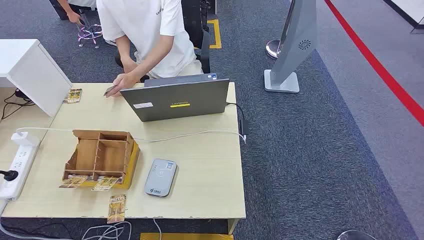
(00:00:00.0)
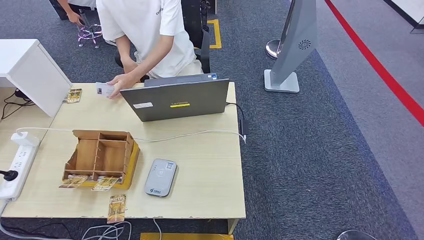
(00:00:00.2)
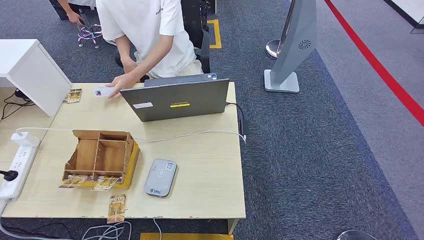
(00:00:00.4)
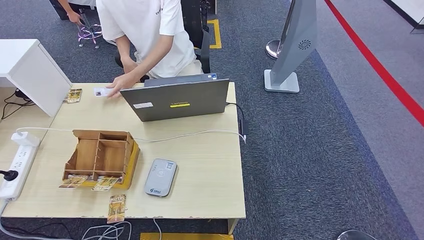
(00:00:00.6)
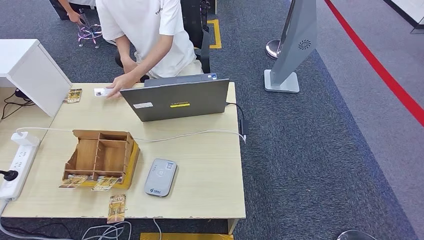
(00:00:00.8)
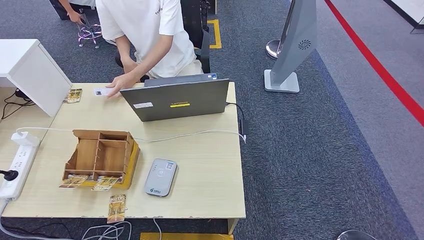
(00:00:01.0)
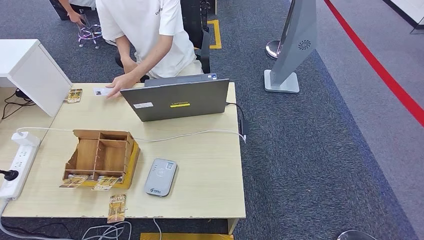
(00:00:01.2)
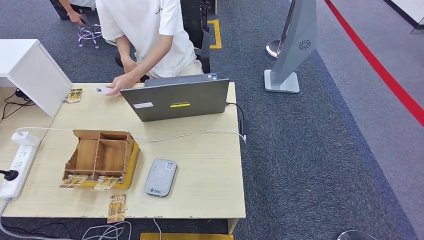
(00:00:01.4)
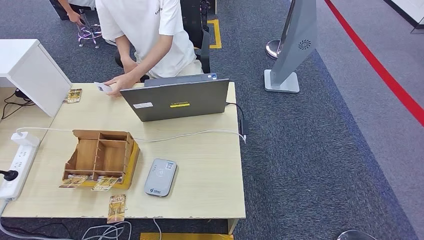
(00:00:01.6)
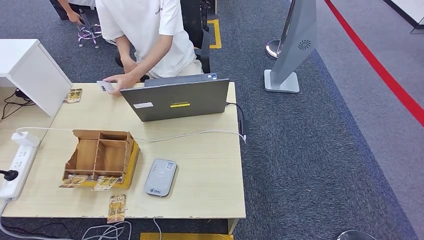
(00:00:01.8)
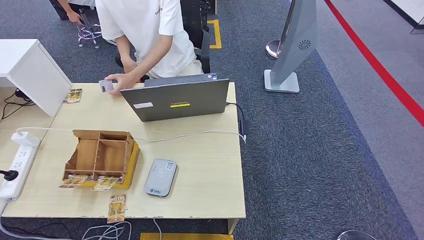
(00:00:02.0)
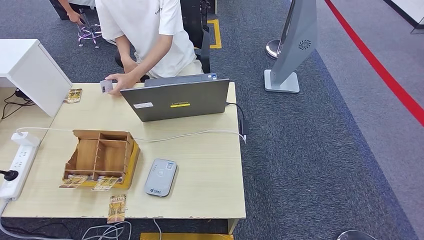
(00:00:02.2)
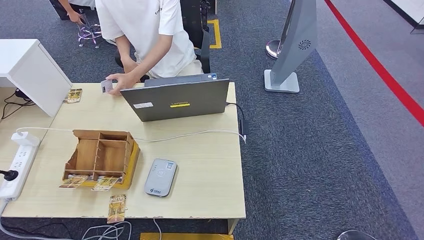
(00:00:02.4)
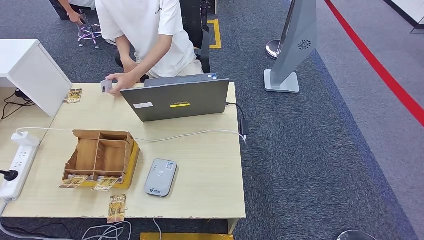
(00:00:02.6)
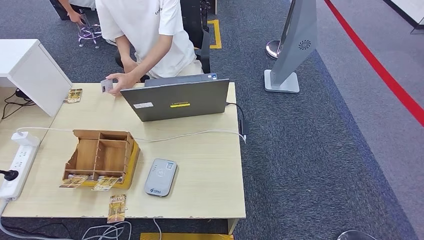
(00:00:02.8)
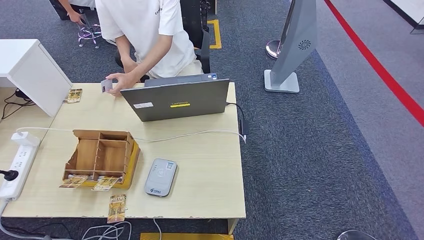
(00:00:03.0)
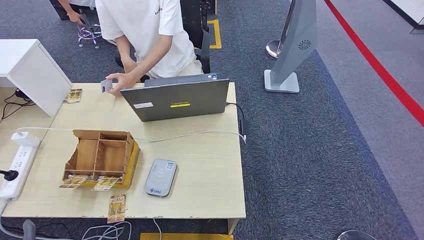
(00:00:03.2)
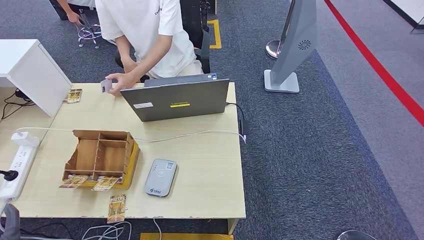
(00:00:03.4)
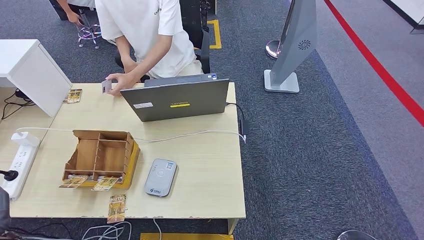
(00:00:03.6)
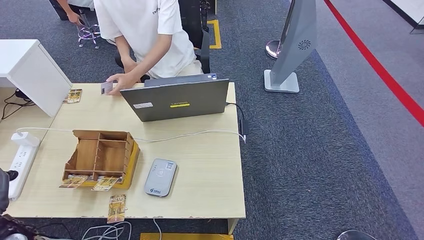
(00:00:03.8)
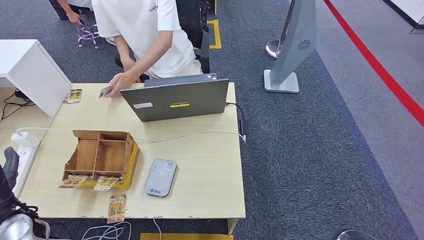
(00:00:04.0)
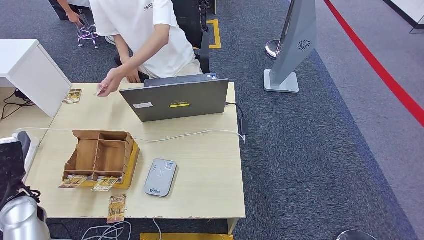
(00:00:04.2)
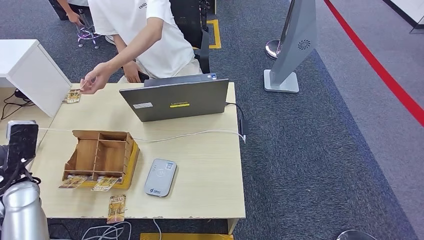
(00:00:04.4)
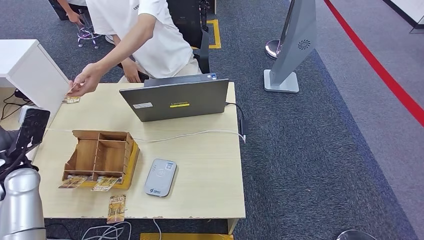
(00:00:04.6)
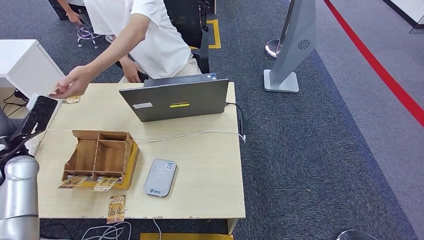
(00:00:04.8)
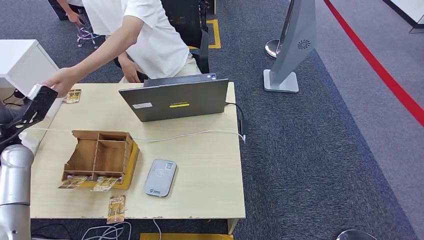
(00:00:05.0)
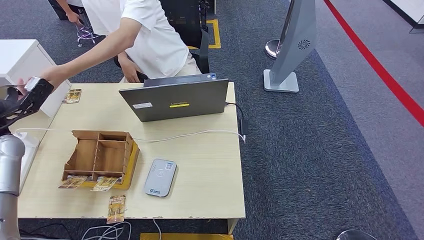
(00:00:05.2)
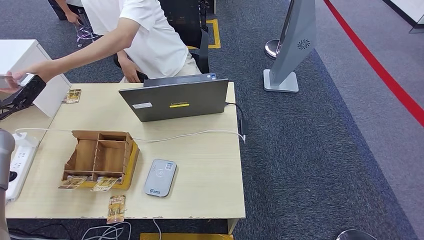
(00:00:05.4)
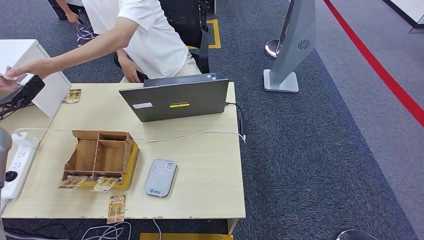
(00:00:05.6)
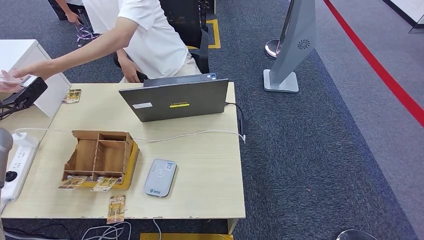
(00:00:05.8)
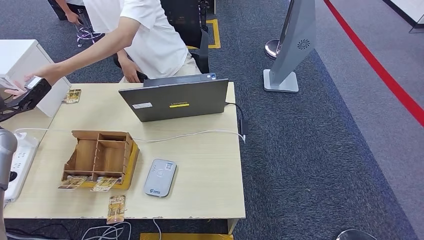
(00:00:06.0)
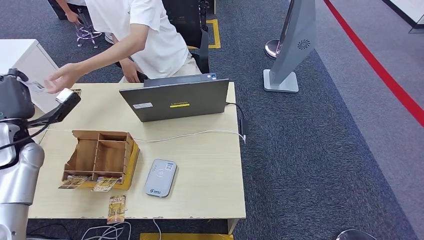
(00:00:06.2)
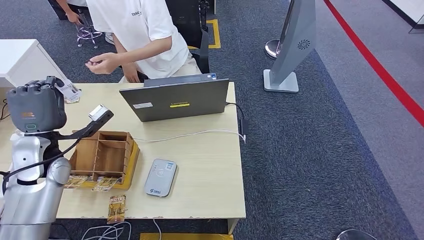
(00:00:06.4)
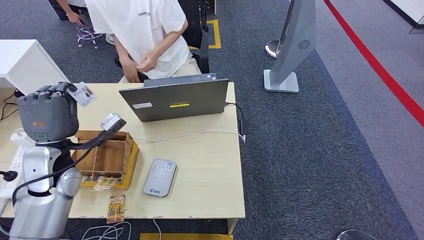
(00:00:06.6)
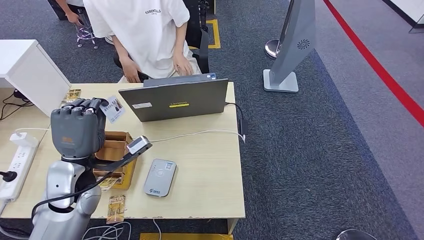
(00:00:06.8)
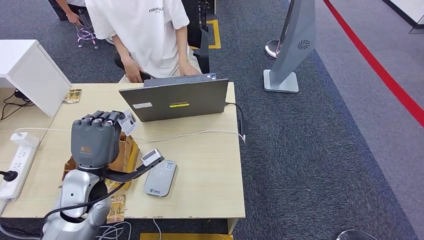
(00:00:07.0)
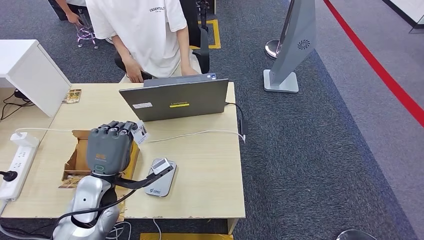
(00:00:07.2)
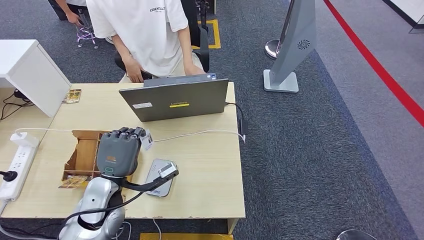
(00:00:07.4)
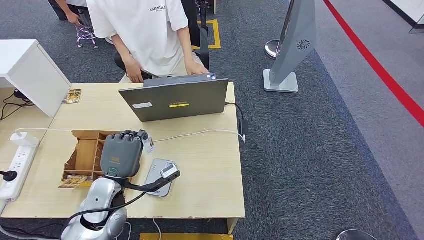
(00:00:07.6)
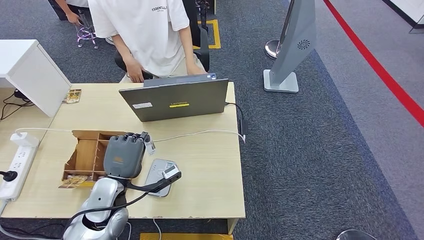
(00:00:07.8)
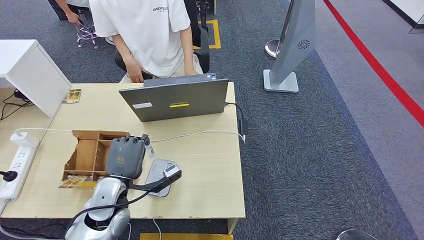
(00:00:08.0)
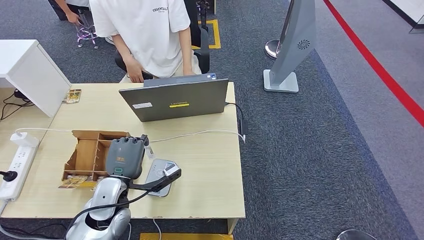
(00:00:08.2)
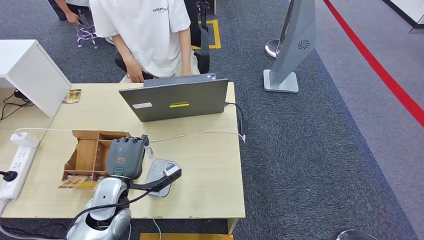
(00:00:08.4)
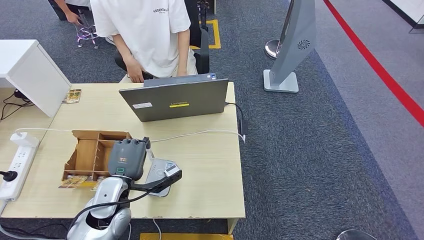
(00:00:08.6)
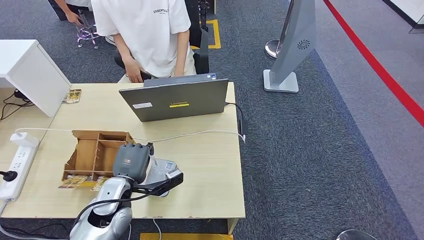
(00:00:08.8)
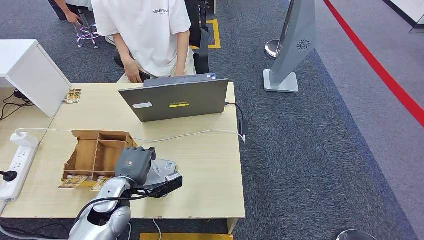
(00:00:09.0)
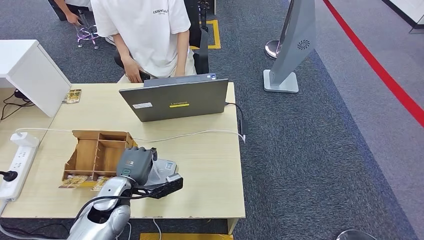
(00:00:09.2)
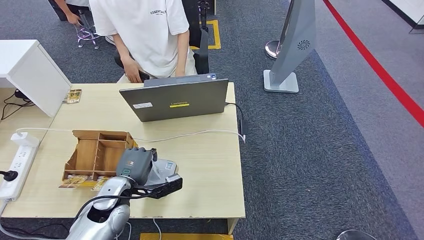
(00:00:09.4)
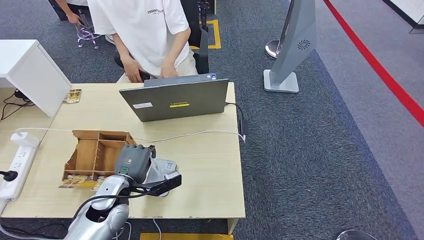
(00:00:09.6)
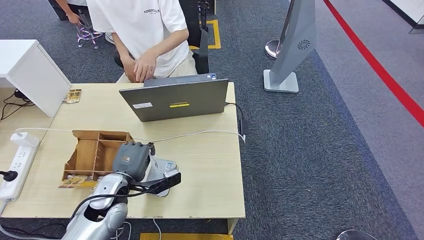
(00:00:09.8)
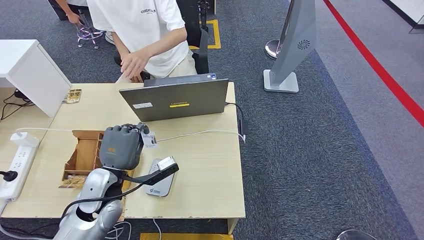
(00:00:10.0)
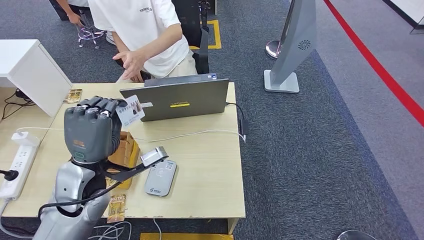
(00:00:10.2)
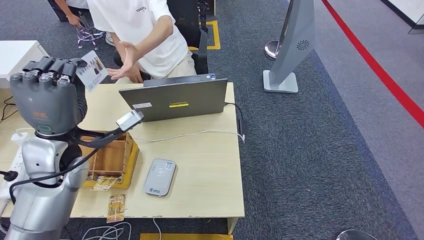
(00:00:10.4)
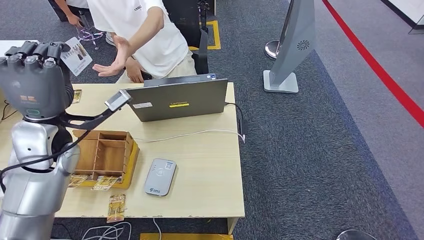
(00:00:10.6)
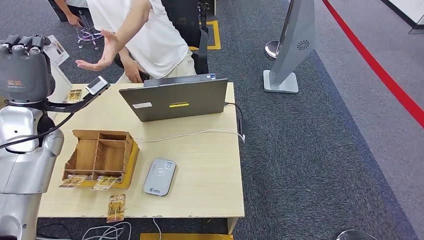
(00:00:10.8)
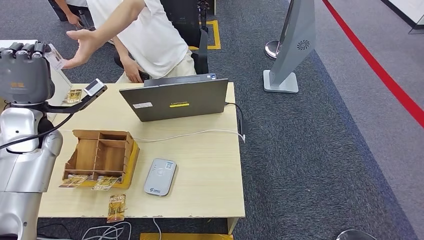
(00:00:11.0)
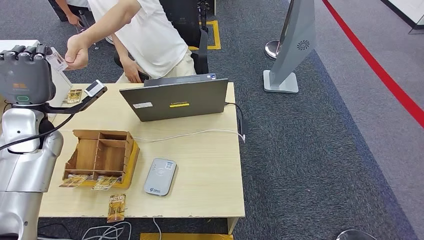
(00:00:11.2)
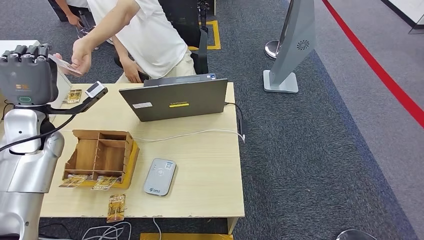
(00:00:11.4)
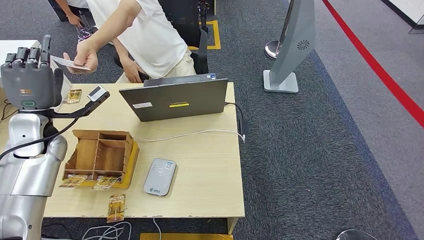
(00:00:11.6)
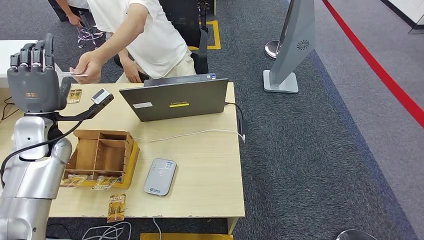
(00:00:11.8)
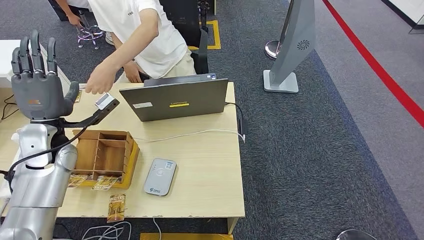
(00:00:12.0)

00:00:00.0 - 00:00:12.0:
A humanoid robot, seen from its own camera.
Step, 00:00:00.0 - 00:00:05.6: Take the ID card from the person's hand.
Step, 00:00:06.2 - 00:00:09.8: Place the ID card on the card reader.
Step, 00:00:10.2 - 00:00:12.0: Hand the ID card to the person.
00:00:03.0 - 00:00:04.4: The left hand is displaced forward and upward by roughly 30 cm.
00:00:04.4 - 00:00:06.0: The left hand shifts approximately 15 cm forward, upward and to the left.
00:00:06.0 - 00:00:07.6: The left hand heads to the right, backward and downward, covering approximately 35 cm.
00:00:10.4 - 00:00:12.0: The left hand moves to the left, forward and downward, about 10 cm.

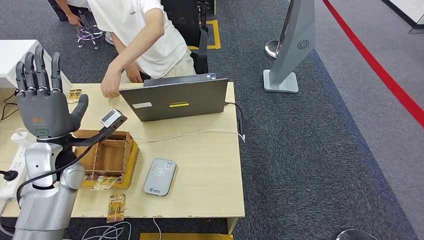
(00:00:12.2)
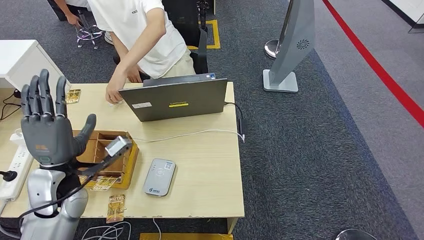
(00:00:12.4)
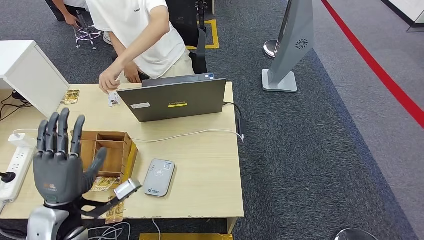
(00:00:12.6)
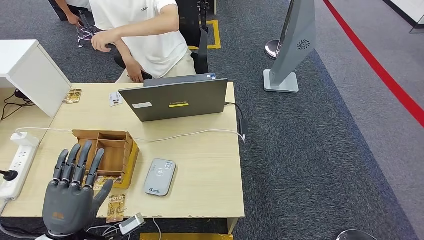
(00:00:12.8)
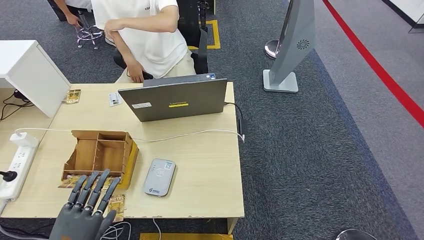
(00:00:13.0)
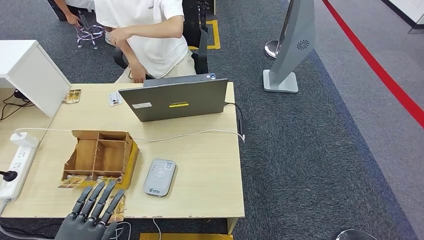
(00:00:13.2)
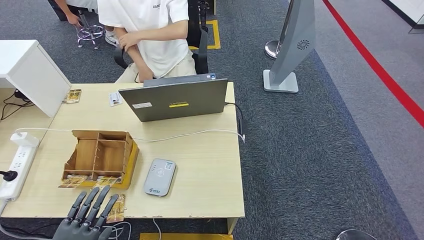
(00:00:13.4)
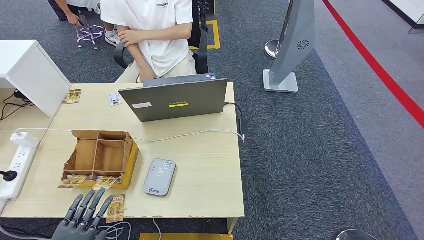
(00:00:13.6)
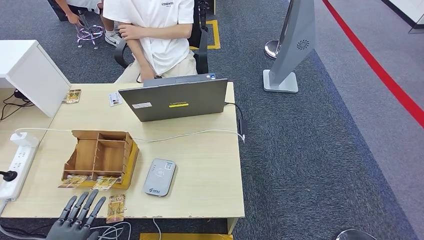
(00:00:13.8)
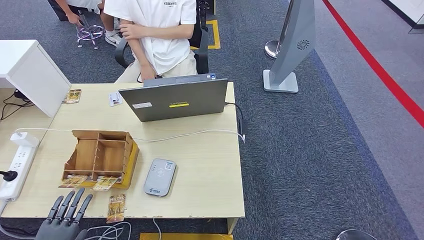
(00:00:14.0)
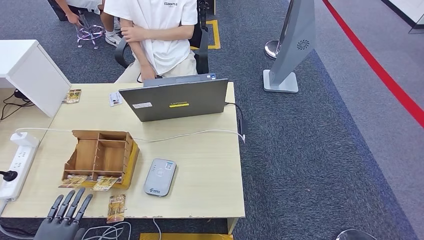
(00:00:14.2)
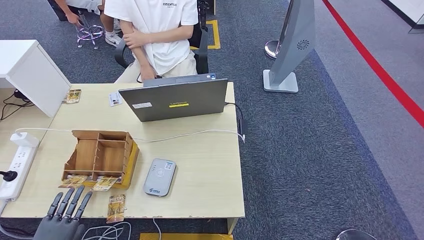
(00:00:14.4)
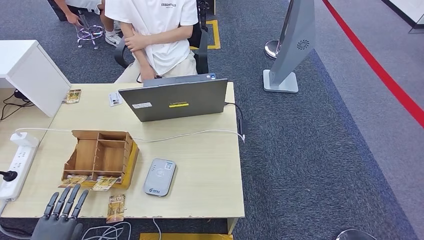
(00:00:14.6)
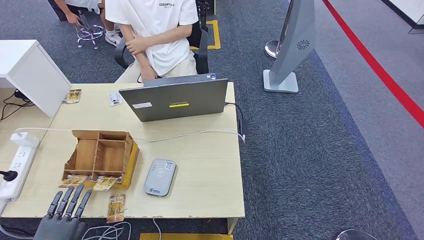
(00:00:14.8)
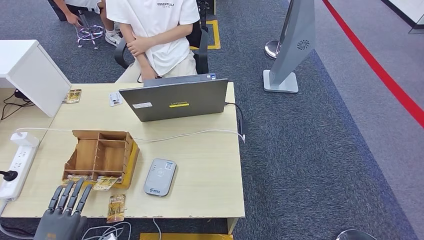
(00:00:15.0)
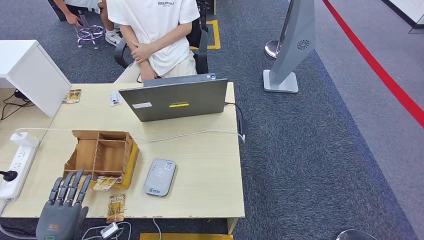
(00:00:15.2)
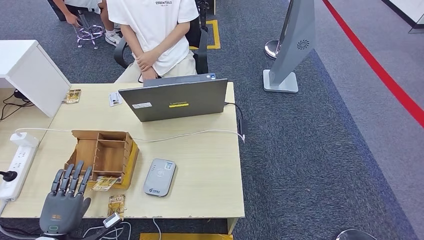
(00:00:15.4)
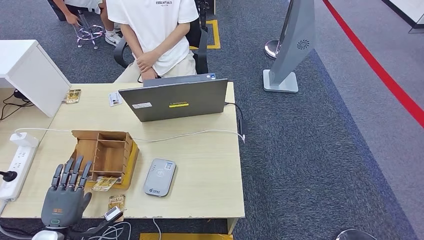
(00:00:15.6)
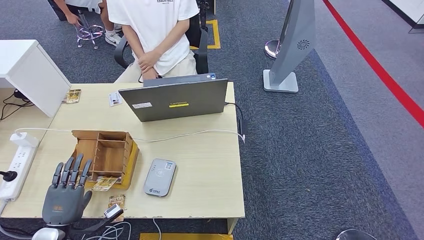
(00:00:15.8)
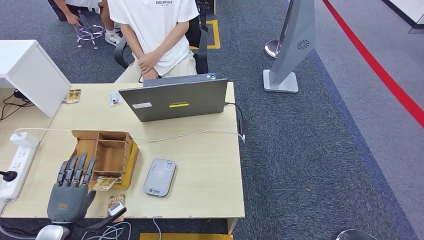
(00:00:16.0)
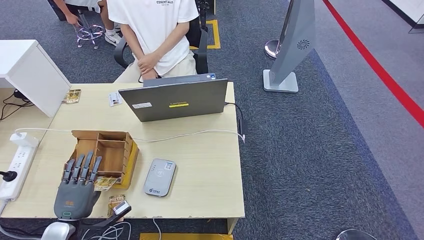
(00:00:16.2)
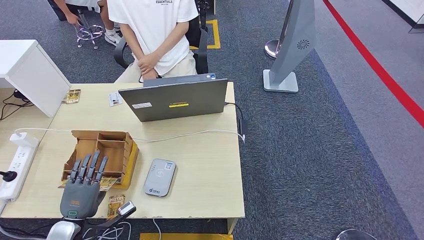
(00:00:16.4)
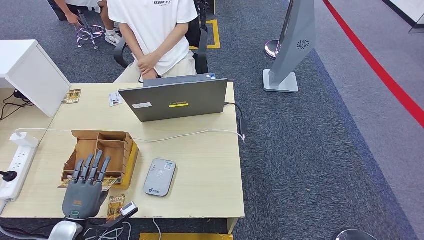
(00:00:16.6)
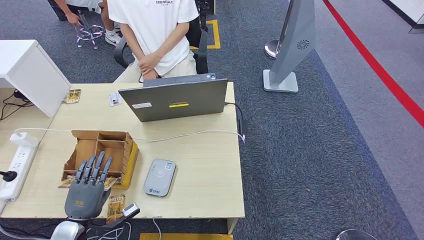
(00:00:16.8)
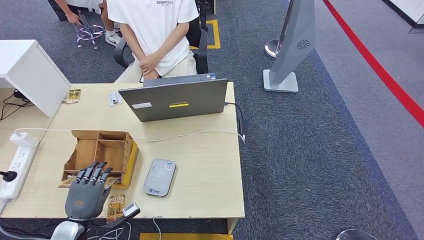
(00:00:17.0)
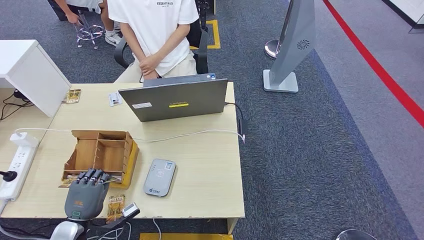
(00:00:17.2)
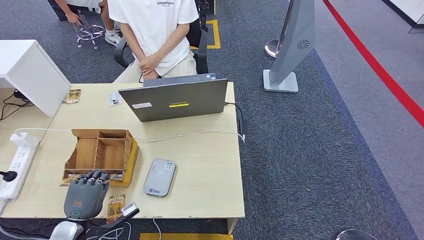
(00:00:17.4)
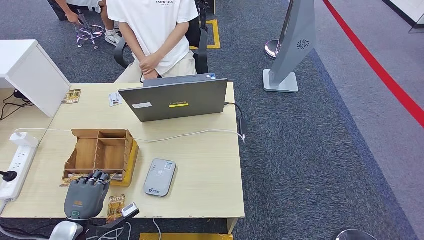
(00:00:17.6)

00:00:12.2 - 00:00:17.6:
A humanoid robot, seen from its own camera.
00:00:12.2 - 00:00:13.6: The left hand heads backward and downward, covering roughly 30 cm.
00:00:13.6 - 00:00:15.0: The left hand moves to the left, about 5 cm.
00:00:15.0 - 00:00:16.2: The left hand shifts roughly 10 cm forward.
00:00:16.2 - 00:00:17.6: There are only small adjustments of the hands.
